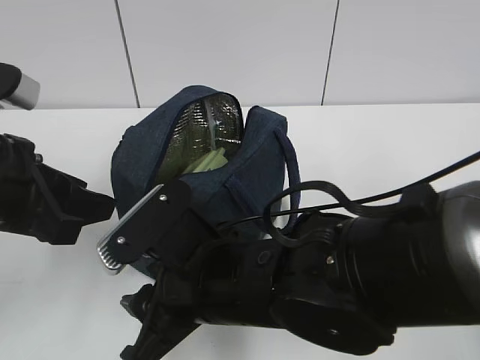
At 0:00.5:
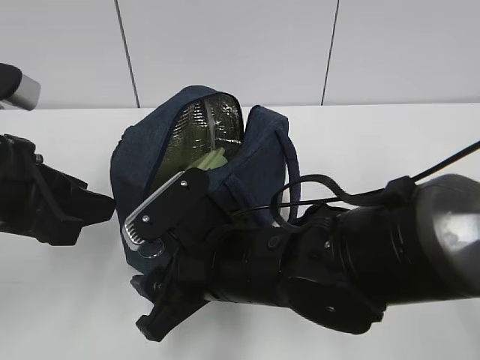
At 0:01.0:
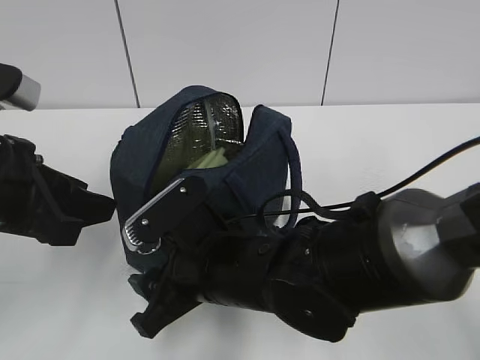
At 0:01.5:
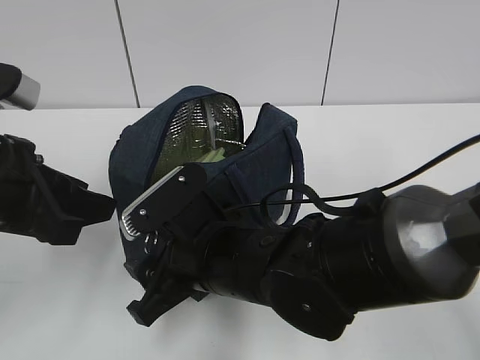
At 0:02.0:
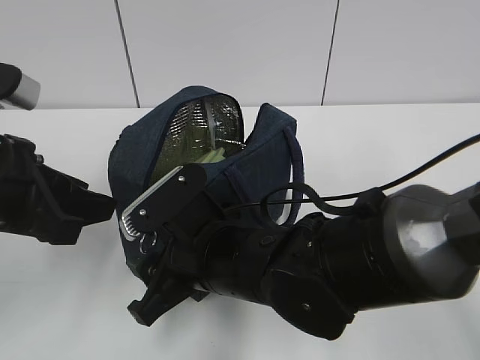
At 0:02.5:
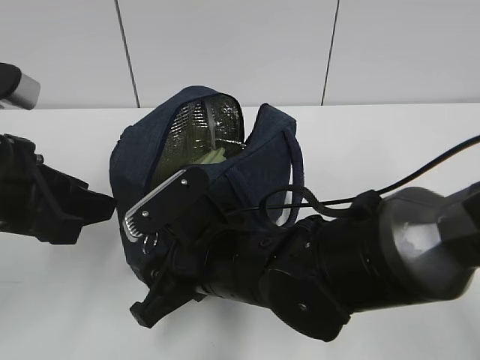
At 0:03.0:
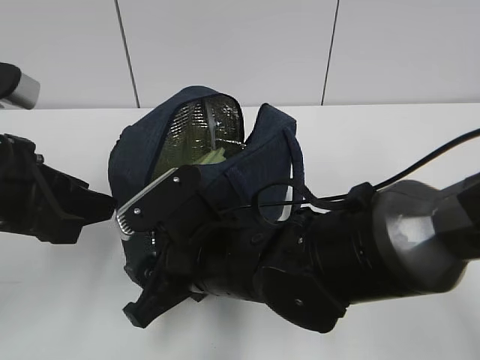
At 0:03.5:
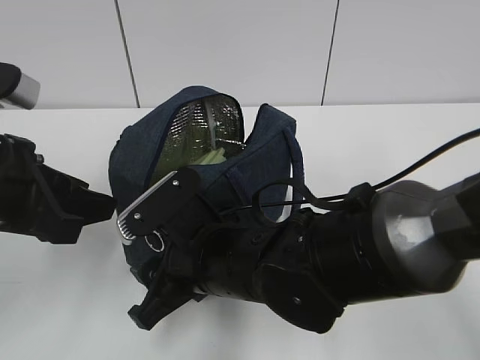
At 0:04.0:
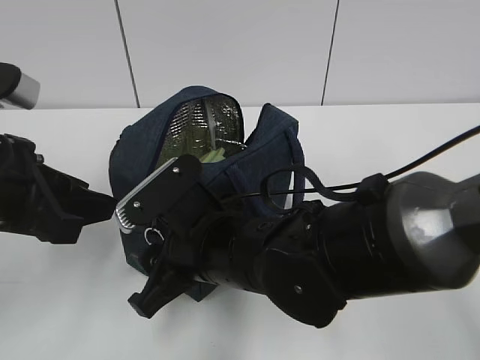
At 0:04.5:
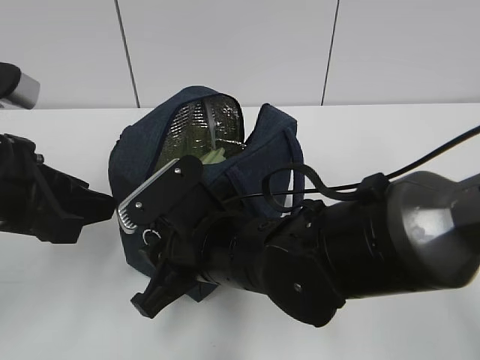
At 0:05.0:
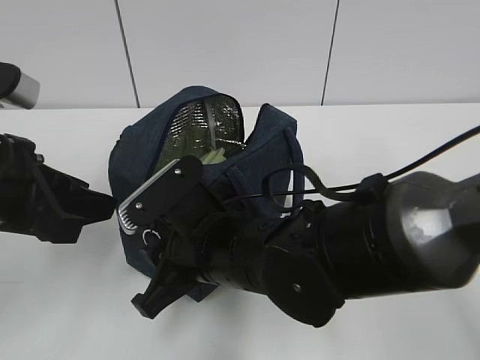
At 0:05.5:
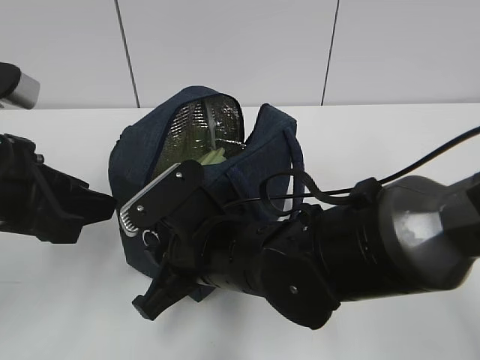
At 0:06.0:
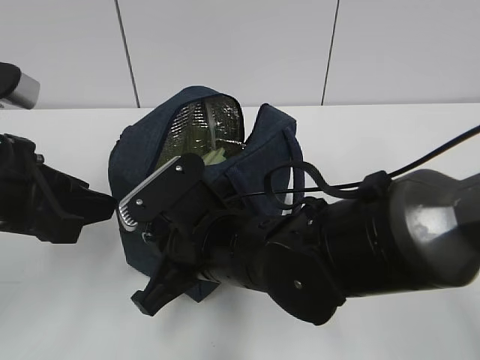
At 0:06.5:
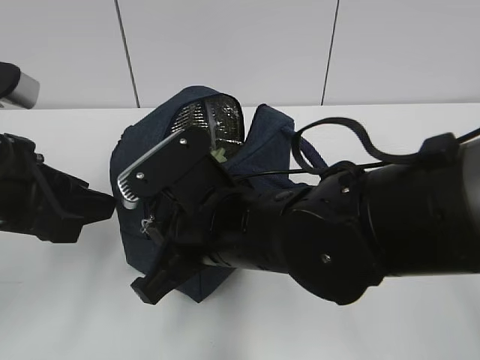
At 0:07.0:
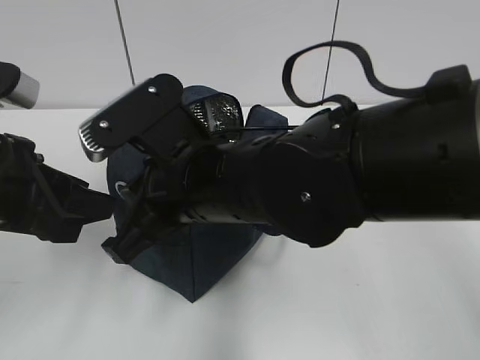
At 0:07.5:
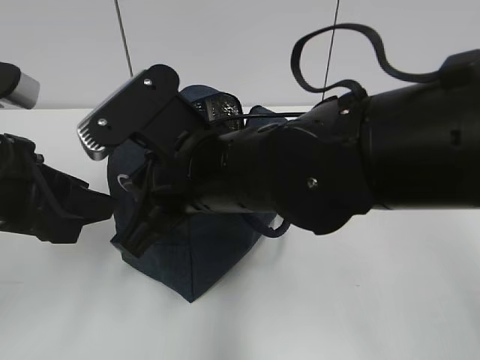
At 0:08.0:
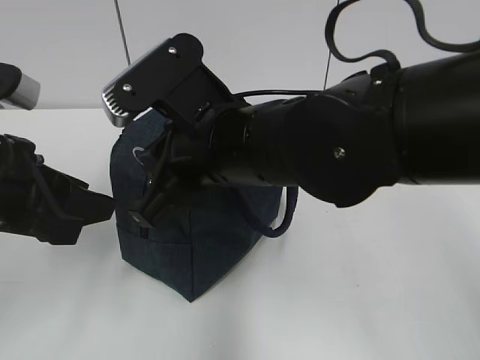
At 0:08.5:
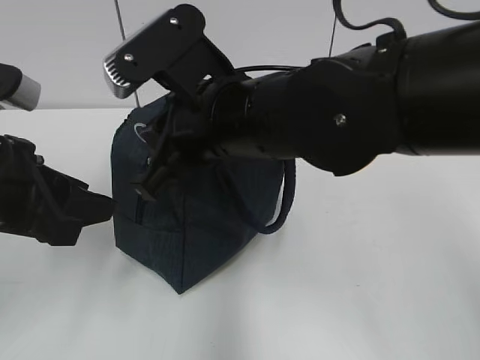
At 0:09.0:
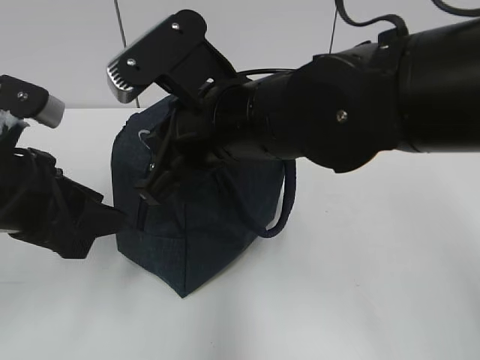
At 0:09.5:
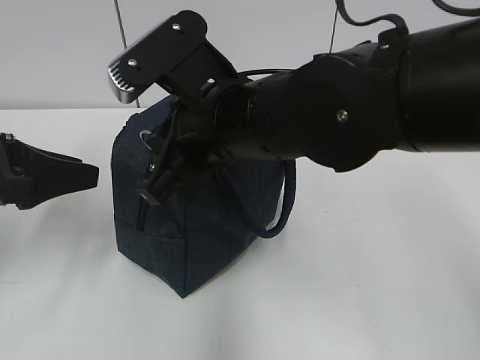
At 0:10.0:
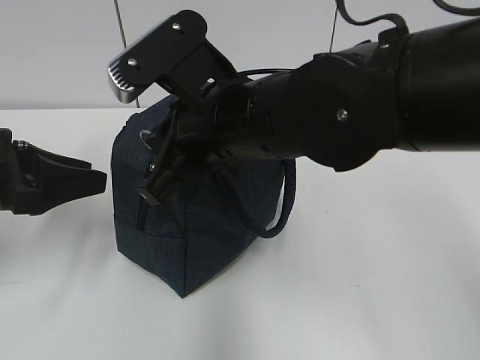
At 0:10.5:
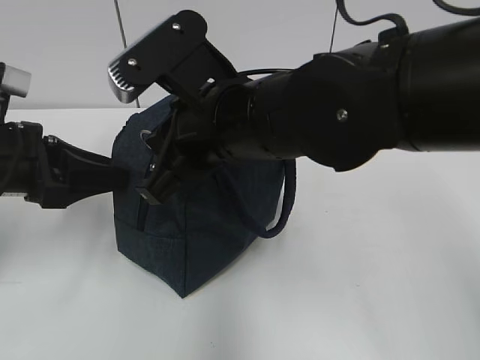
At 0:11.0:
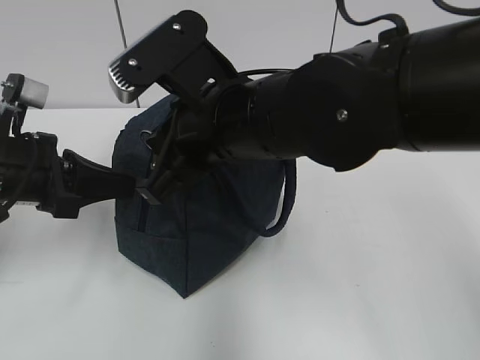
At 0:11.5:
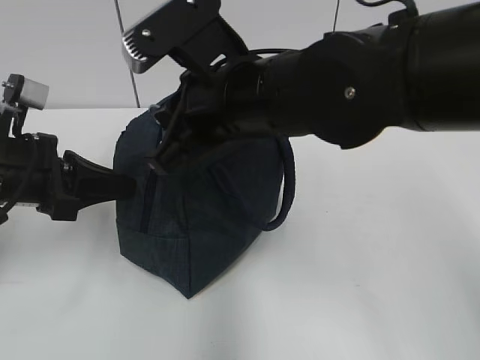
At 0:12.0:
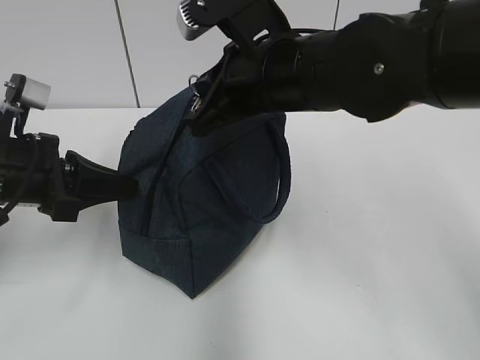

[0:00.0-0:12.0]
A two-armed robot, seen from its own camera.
0:00.0 to 0:02.0: The grippers make only small movements.
0:02.0 to 0:04.0: Neither gripper changes place.
0:04.0 to 0:06.0: The right gripper closes its fingers.
0:06.0 to 0:08.0: The right gripper moves upward, about 10 cm.
0:08.0 to 0:10.0: The left gripper shifts by some 5 cm.
0:10.0 to 0:12.0: The left gripper closes. The right gripper shifts by roughly 5 cm.

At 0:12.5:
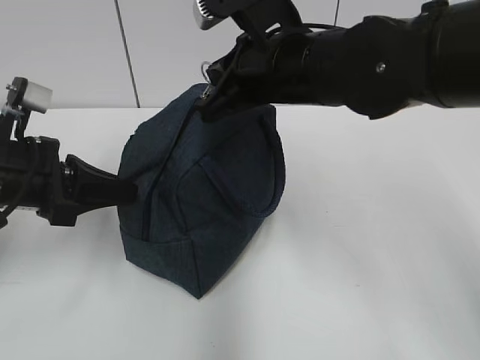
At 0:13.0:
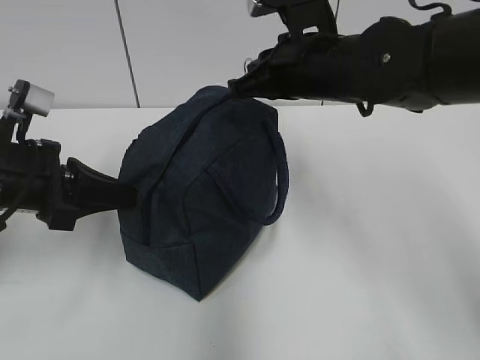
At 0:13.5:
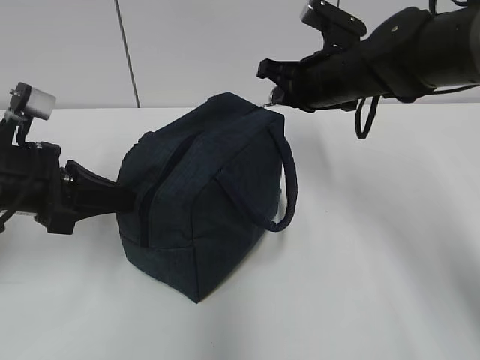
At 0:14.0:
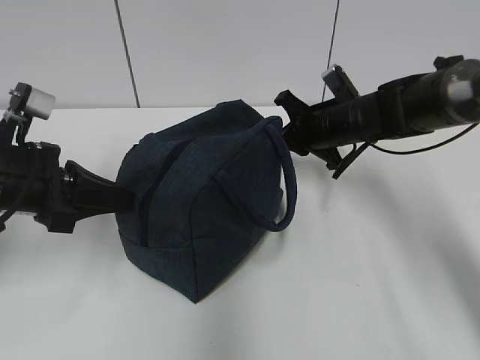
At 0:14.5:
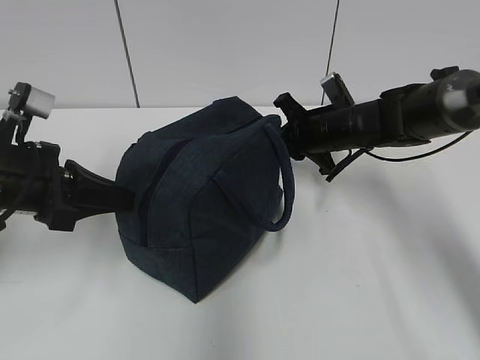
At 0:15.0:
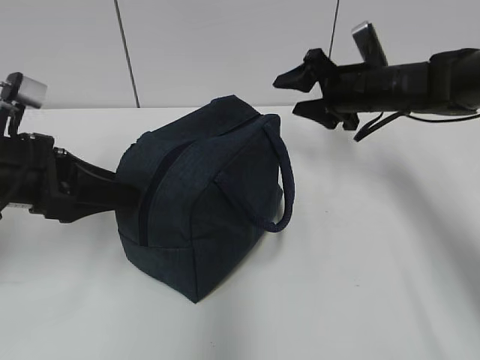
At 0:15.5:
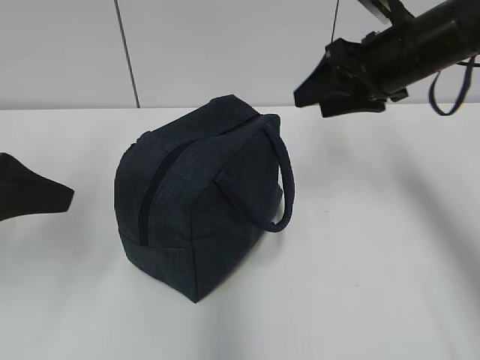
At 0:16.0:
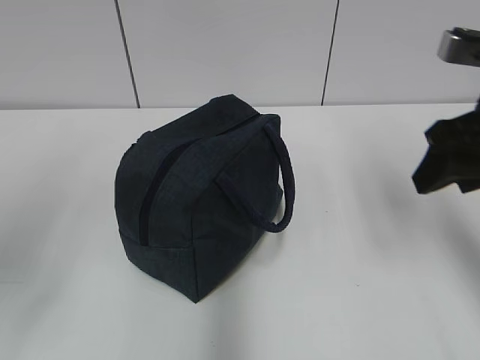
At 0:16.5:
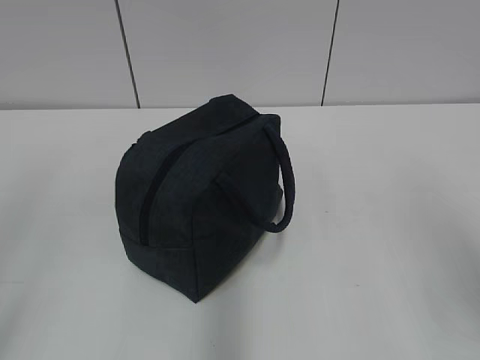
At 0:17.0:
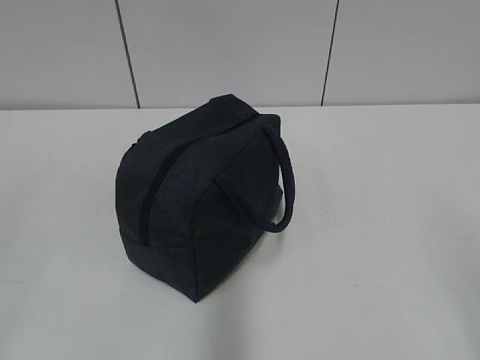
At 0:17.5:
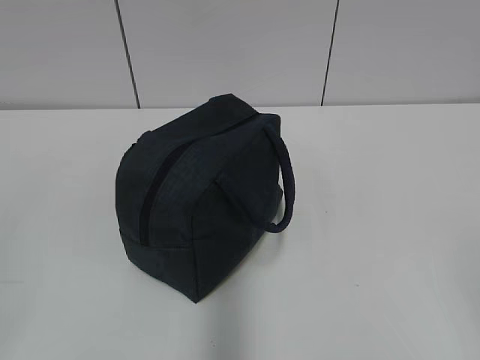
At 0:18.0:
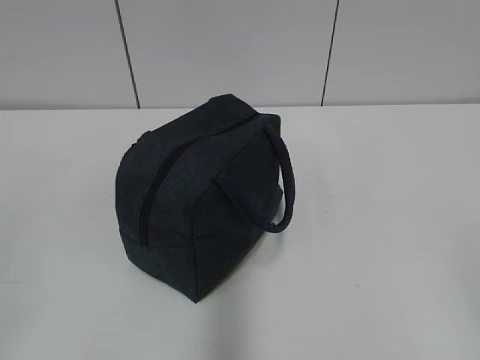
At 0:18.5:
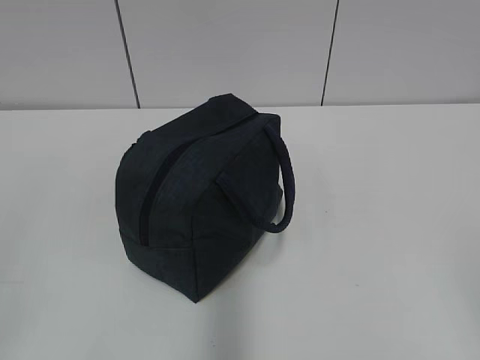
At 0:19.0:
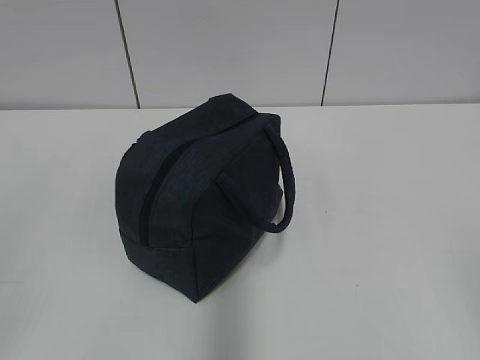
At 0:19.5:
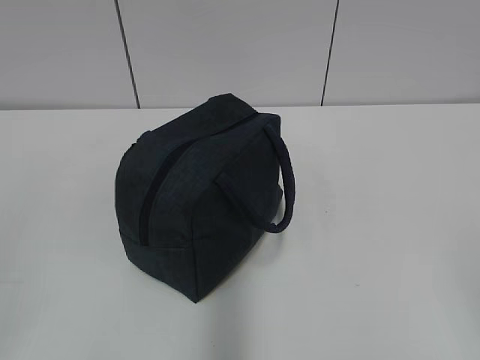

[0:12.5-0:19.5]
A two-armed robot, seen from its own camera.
0:12.5 to 0:14.5: The right gripper shifts roughly 20 cm downward, forward and to the right.
0:14.5 to 0:16.0: The right gripper goes about 25 cm backward, upward and to the right, and opens, while the left gripper heads backward and upward, covering some 15 cm, and opens up.
0:16.0 to 0:17.5: The right gripper goes approximately 25 cm backward.
